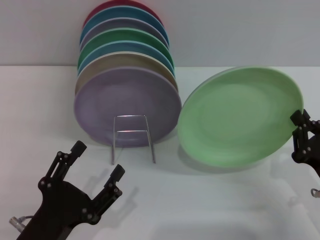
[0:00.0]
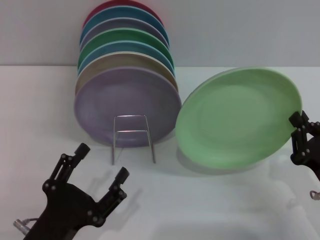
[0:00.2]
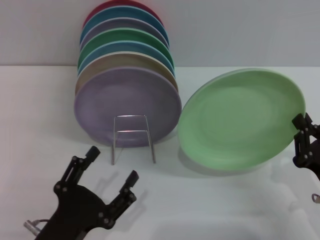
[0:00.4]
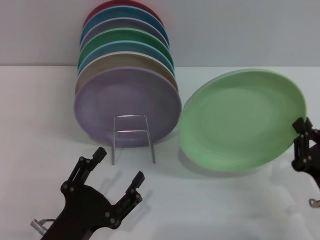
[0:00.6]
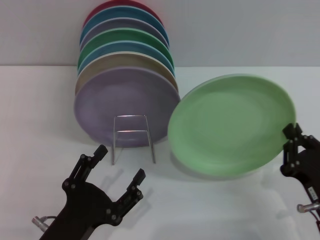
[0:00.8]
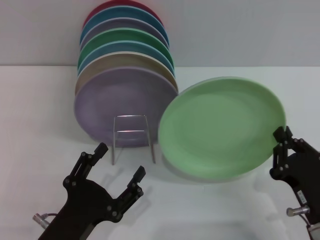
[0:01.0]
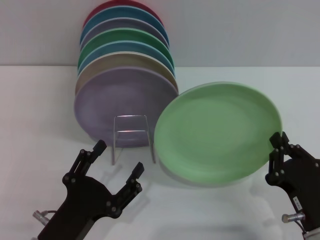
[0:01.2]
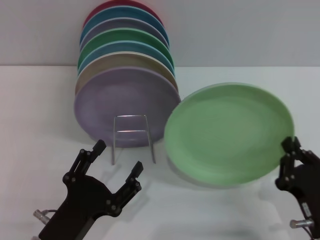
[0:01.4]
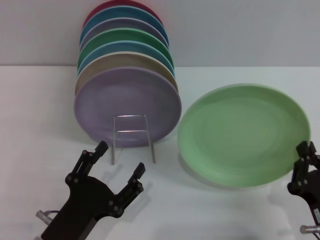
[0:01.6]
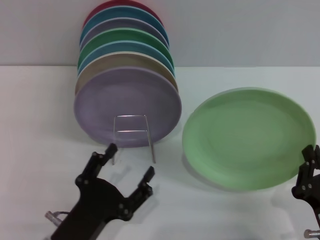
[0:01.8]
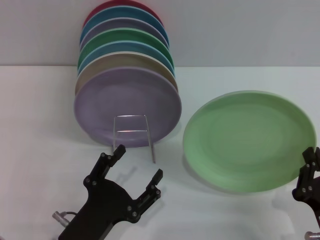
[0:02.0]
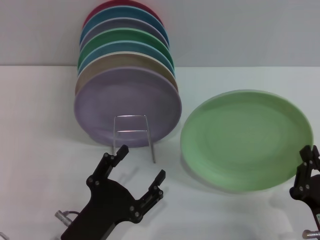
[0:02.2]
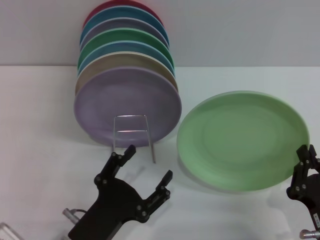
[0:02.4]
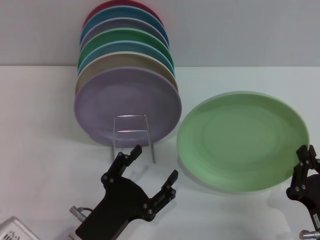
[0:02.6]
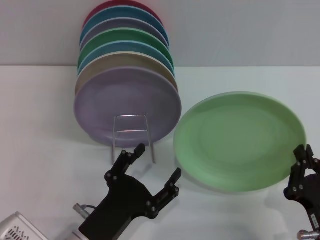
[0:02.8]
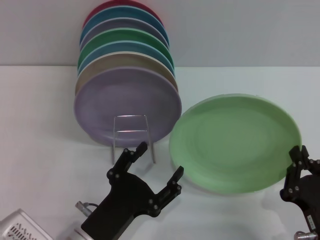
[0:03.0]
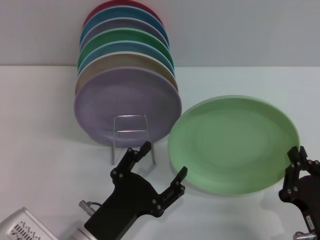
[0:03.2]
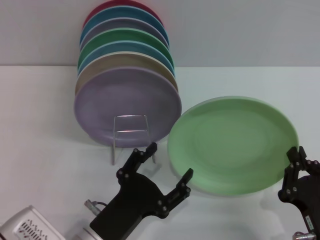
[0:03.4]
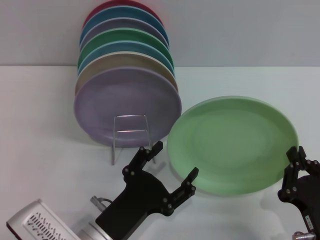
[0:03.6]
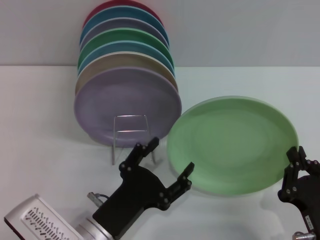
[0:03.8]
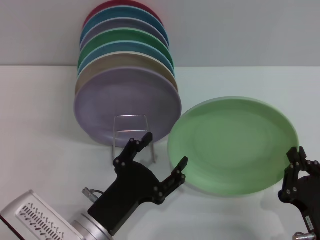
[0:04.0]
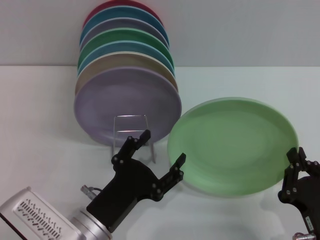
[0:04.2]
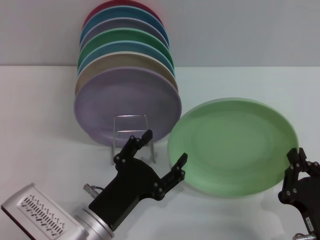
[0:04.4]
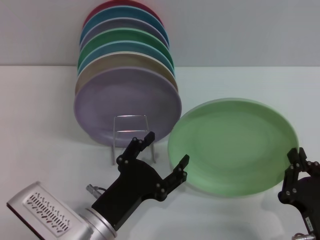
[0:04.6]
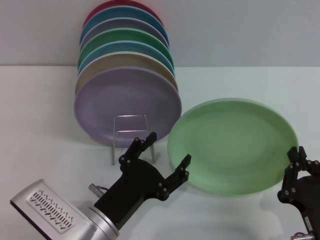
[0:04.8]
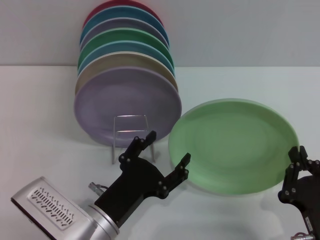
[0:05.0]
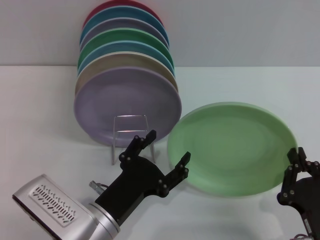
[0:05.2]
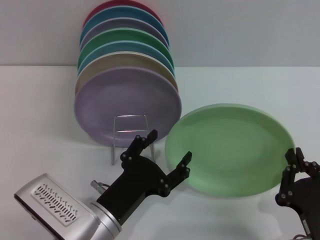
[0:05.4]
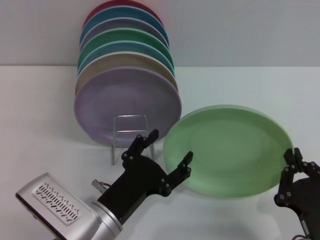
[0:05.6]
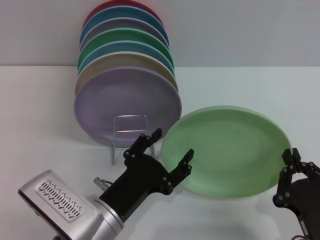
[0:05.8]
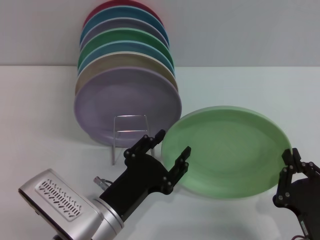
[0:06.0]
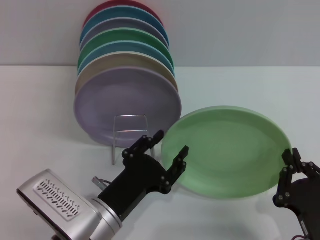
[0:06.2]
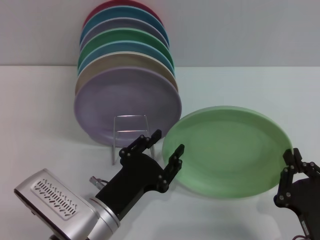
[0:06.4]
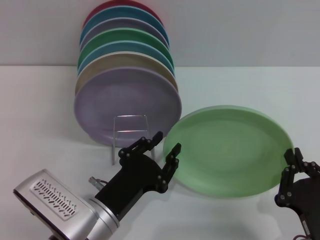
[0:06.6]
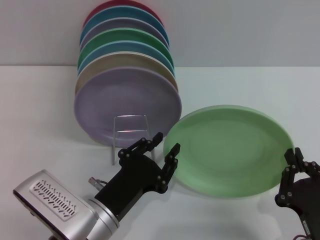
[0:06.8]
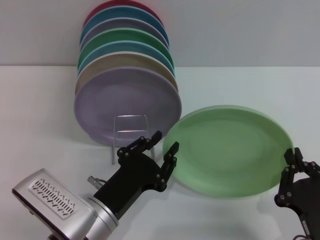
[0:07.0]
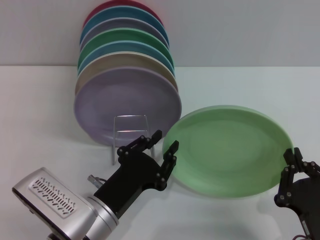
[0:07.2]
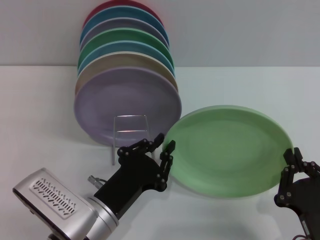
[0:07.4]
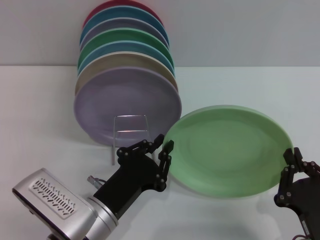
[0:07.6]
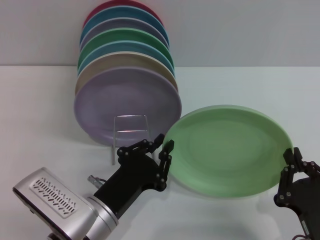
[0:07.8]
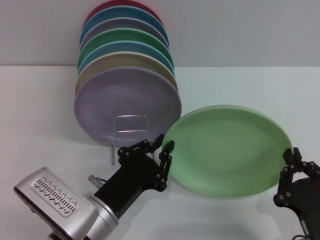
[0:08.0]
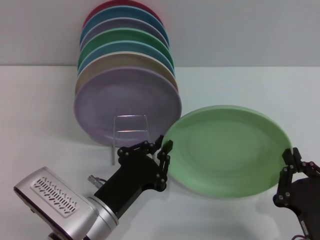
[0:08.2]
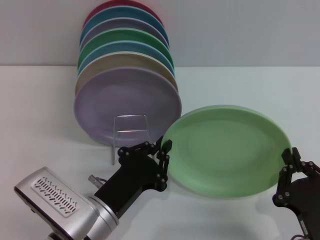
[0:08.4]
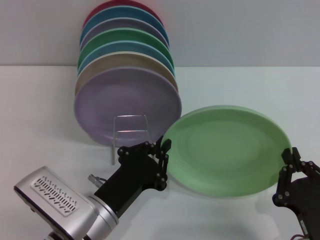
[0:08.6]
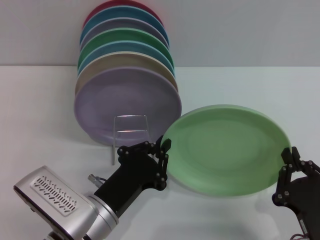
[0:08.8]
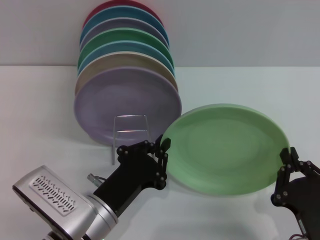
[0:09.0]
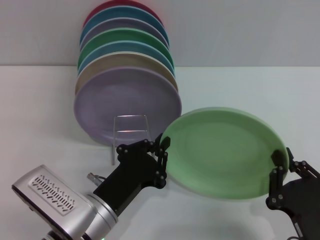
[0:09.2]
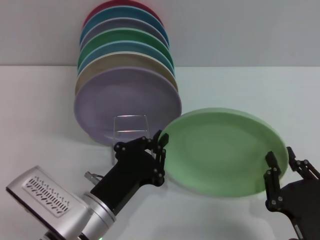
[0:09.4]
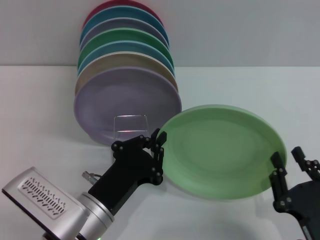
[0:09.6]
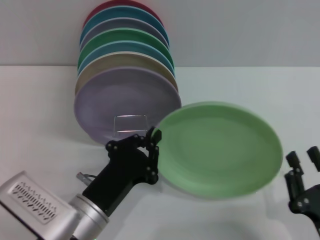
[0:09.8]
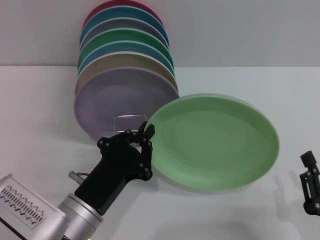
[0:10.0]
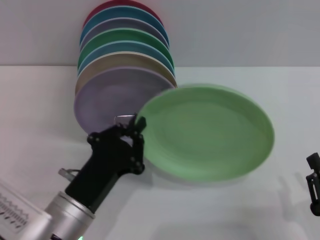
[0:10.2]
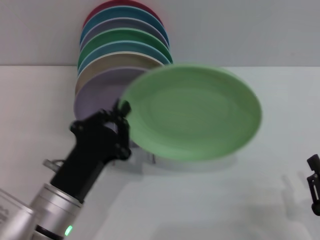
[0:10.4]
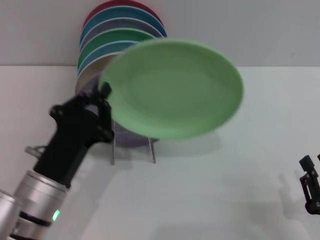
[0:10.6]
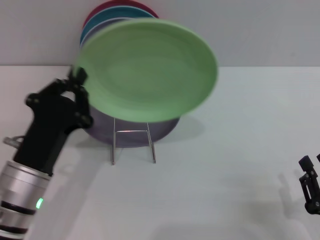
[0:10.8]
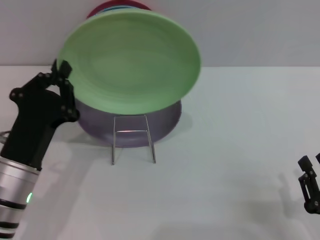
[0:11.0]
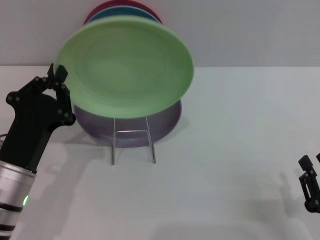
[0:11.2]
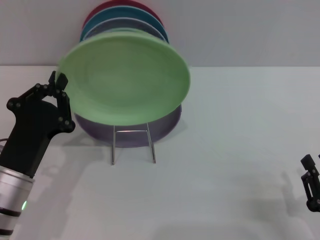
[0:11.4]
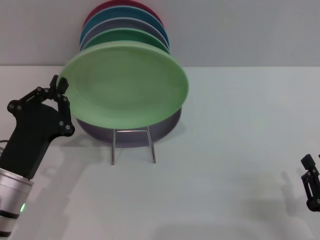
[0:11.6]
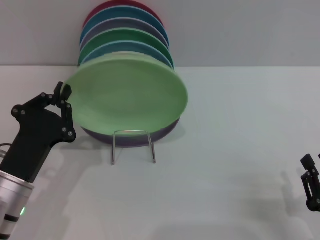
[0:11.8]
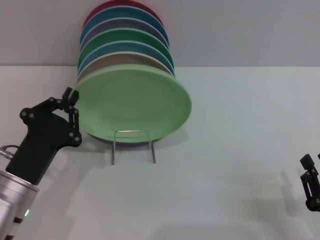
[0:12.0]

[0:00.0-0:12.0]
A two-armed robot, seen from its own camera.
Task of the whole recording: Grip the plate with one hand, pass it to the other, then set it on the shelf.
Step, 0:00.0 to 0:10.2: Pass the plate from the right gripper to the left gripper.
0:00.0 to 0:01.6: The right gripper moves backward and to the left, approximately 10 cm.
0:01.6 to 0:04.4: The grippers stay close to where they were, moving slightly.
0:04.4 to 0:06.0: There are only small adjustments of the grippers.
0:06.0 to 0:07.6: The left gripper closes.
0:07.6 to 0:09.0: The two grippers keep their place.
0:09.0 to 0:10.4: The right gripper heads to the right, covering roughly 5 cm, and opens up.
0:10.4 to 0:12.0: The left gripper moves to the left, about 5 cm.

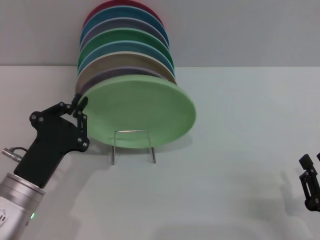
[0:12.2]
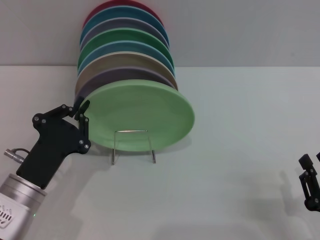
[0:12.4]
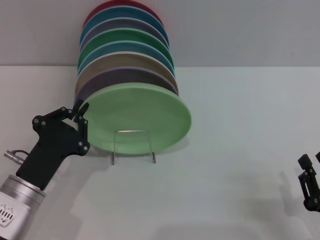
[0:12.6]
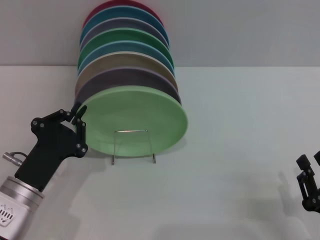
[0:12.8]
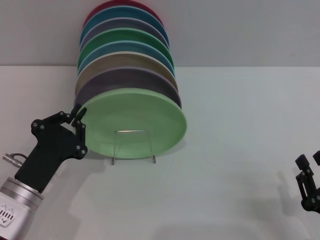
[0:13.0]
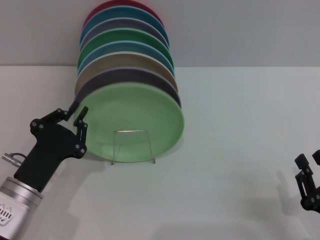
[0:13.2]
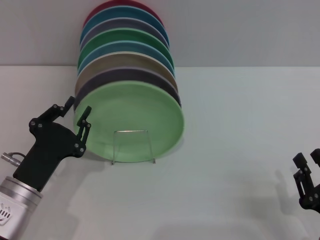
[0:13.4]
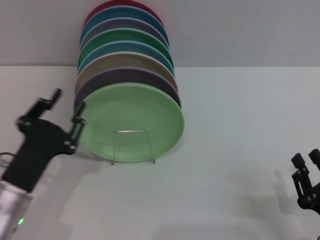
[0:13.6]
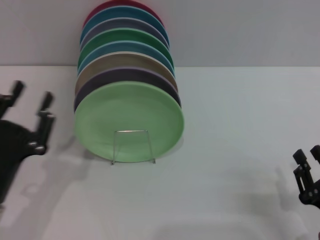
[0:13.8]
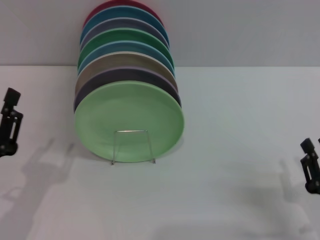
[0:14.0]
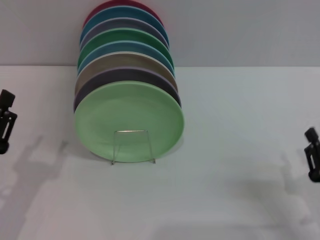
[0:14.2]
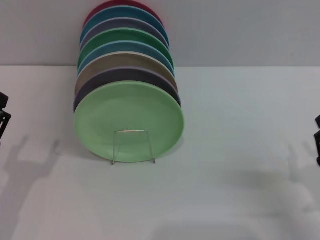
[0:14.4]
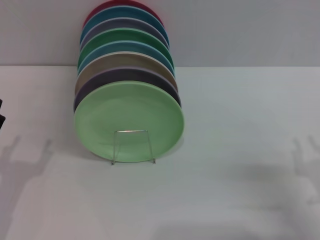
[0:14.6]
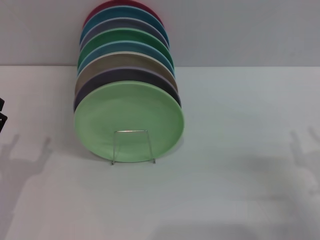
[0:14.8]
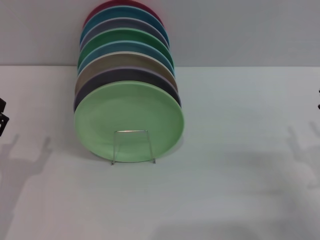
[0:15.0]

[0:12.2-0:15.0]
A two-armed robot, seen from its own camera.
Task of the whole recording: Grip the plate with one hand, pass it to the other, then set it on the shelf.
0:12.2 to 0:13.6: The left gripper opens.
0:13.6 to 0:15.0: The right gripper shifts roughly 10 cm forward, while the left gripper goes about 5 cm to the left, and opens.
